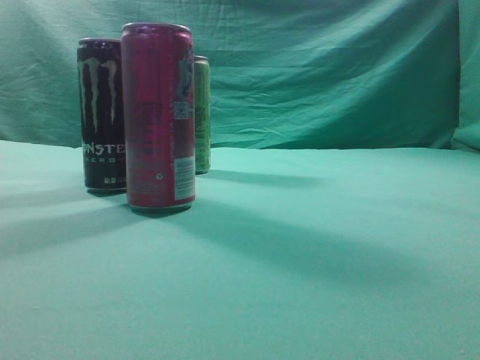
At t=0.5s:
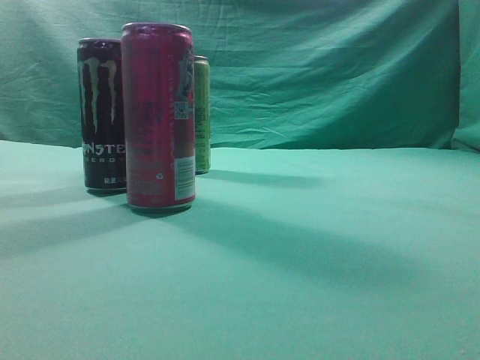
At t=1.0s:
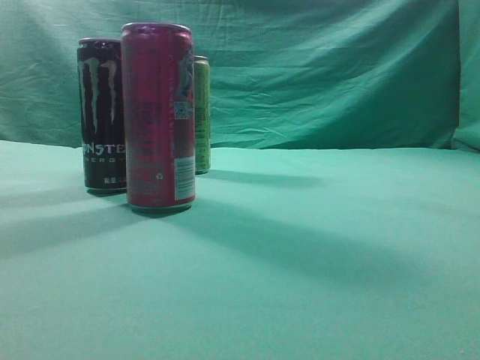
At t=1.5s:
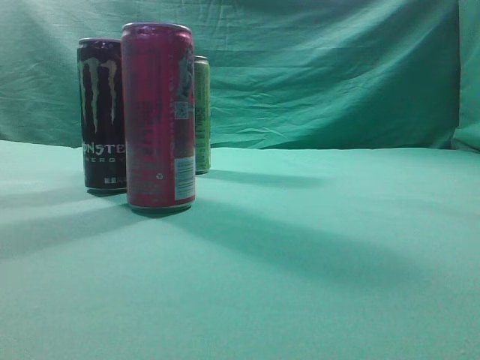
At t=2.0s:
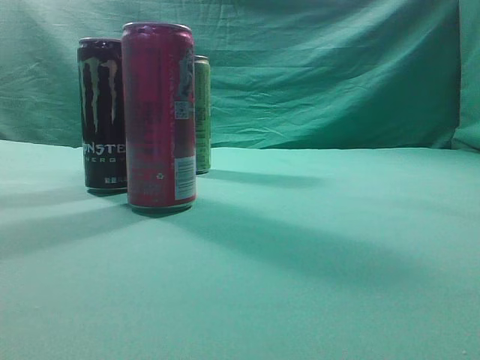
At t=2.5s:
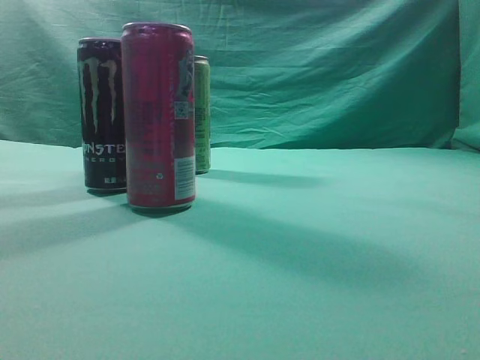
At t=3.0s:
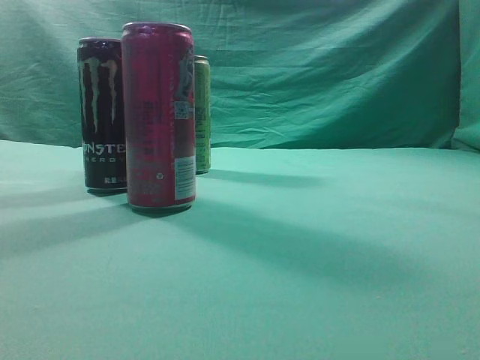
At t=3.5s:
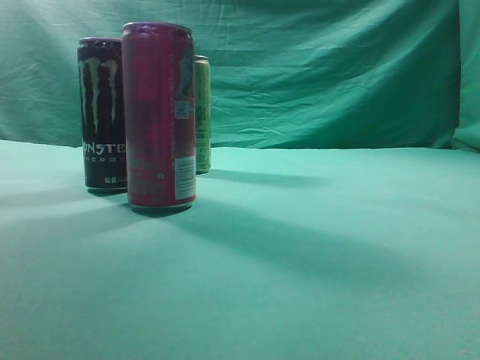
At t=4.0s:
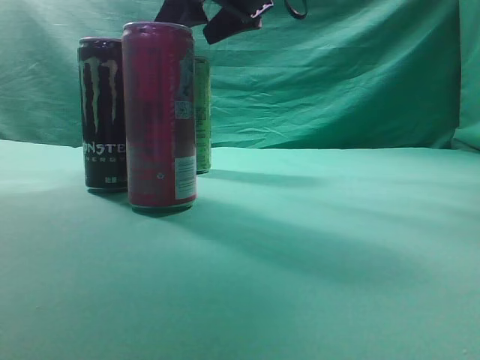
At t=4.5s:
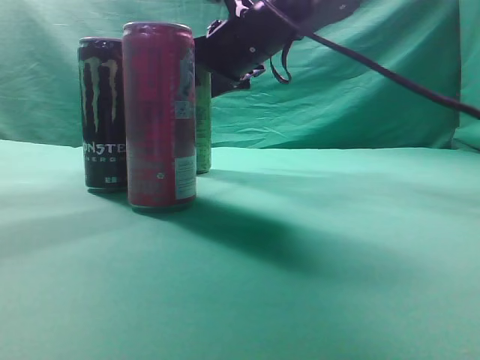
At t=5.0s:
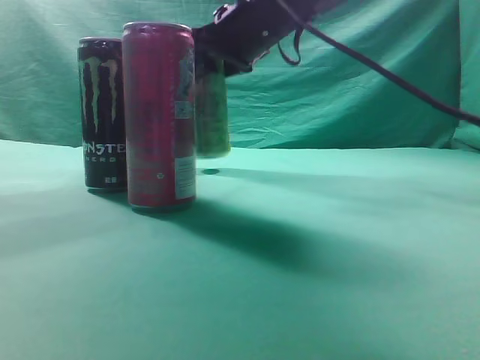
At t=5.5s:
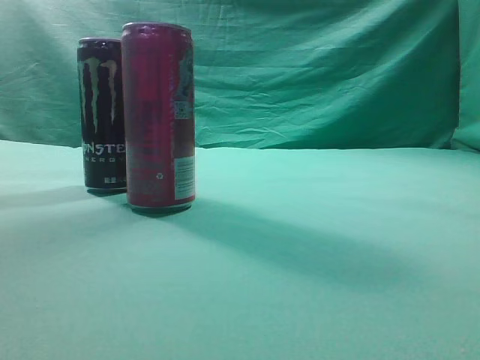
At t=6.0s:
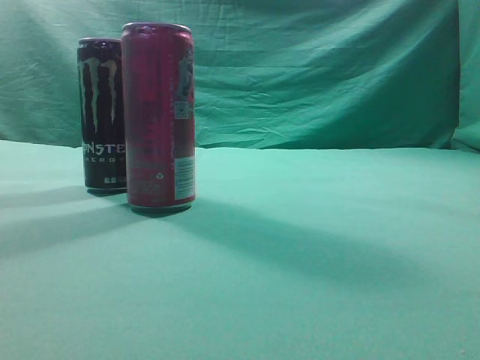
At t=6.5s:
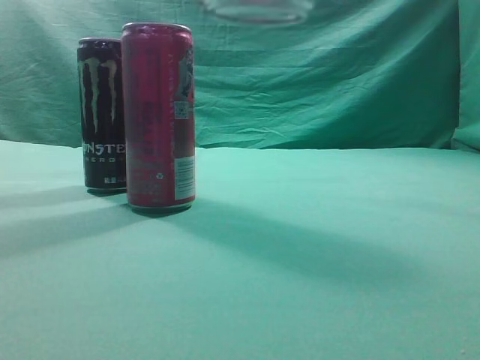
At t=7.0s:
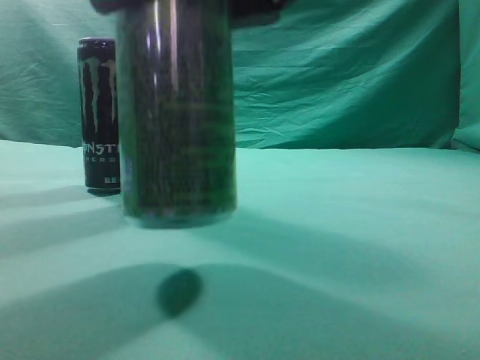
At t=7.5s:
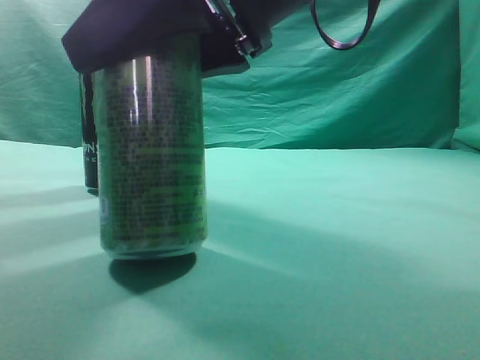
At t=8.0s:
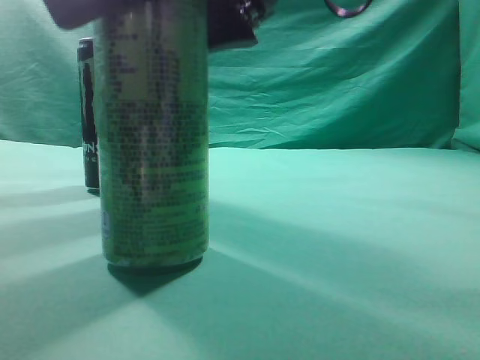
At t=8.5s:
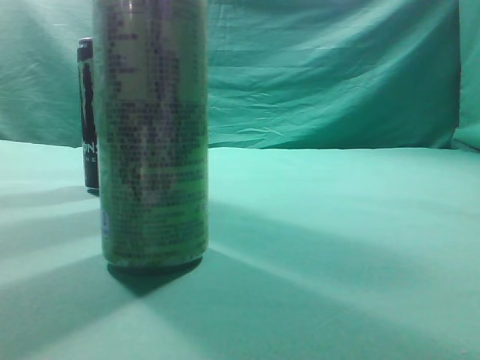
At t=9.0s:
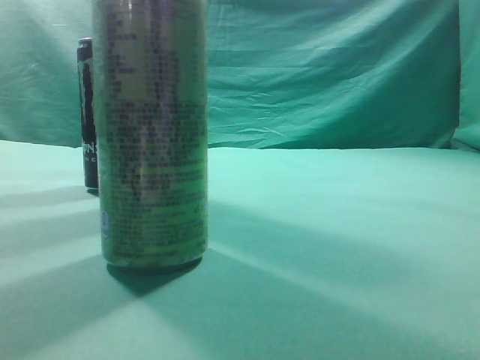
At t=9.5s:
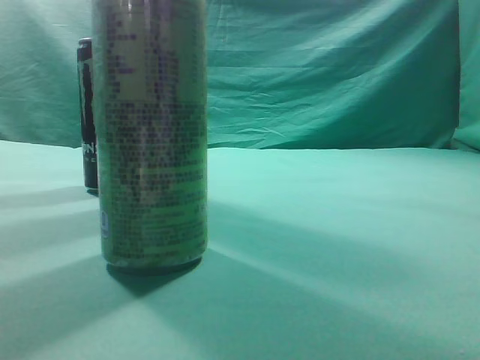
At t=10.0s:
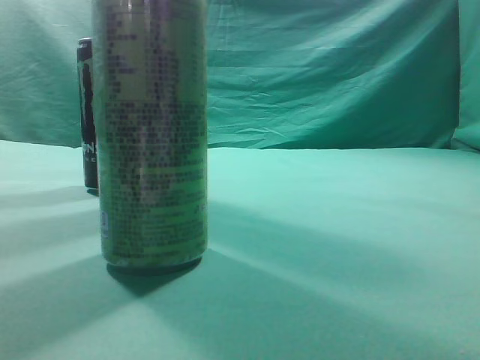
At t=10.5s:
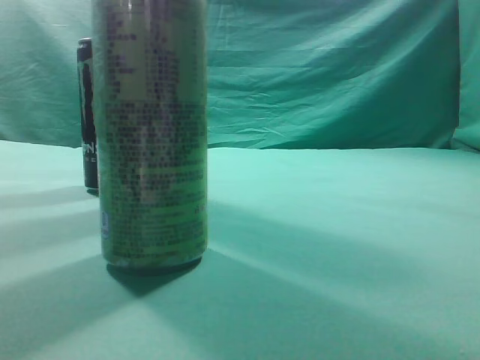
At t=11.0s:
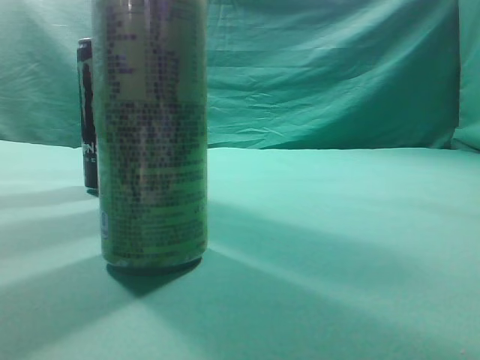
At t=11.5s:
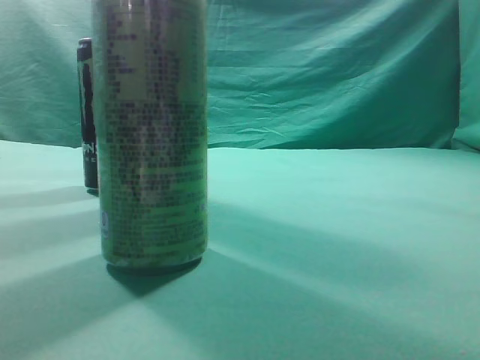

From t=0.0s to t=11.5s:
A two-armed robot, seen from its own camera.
Task of the whole recording: move one drink among three beverages.
Step, from t=0.0s to t=5.0s: Grasp the beverage bottle placed at the back of the desk.
Step, from t=5.5s to t=8.0s: Place the beverage bottle to the front of the table.
From t=2.0s to t=4.0s: The right gripper moves forward and to the left, about 40 cm, and opens its fingers.
From t=4.0s to t=6.0s: The right gripper travels backward, upward and to the right by roughly 25 cm.
From t=6.0s to t=7.5s: The right gripper moves downward and to the left, about 25 cm.
From t=7.5s to t=9.5s: The right gripper shifts approximately 30 cm upward, to the right and backward, and closes up.
